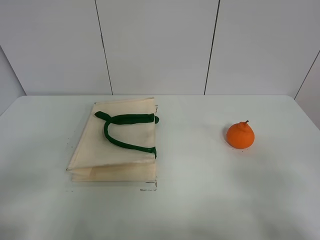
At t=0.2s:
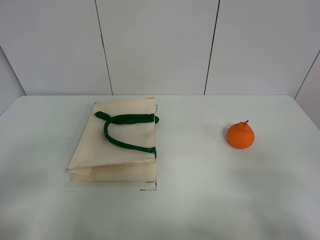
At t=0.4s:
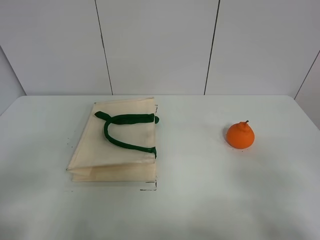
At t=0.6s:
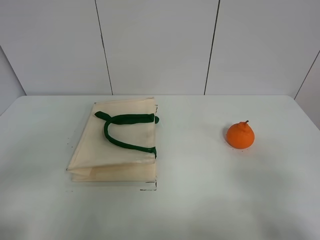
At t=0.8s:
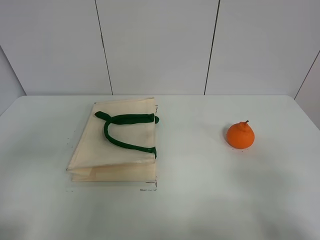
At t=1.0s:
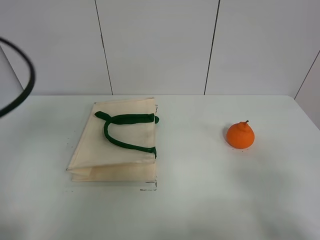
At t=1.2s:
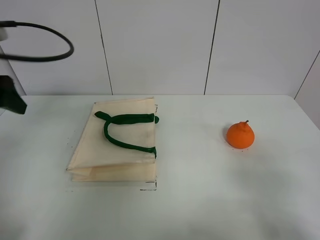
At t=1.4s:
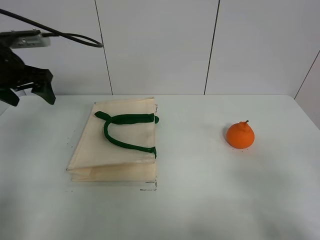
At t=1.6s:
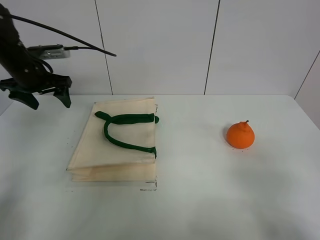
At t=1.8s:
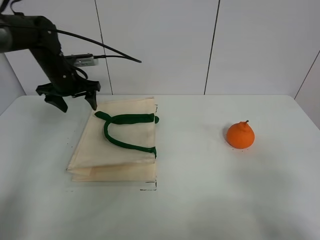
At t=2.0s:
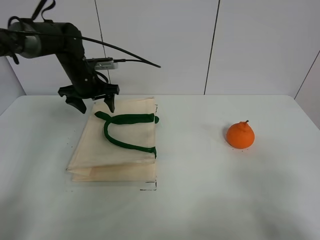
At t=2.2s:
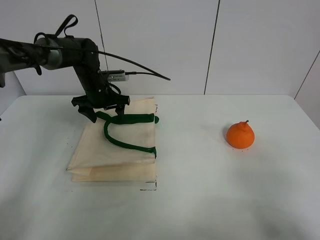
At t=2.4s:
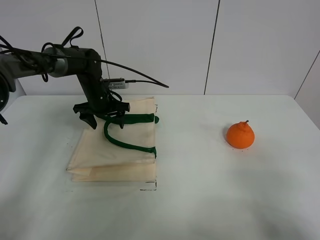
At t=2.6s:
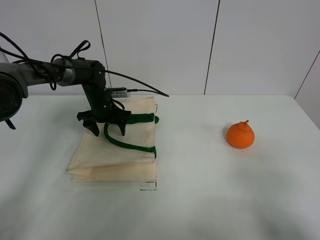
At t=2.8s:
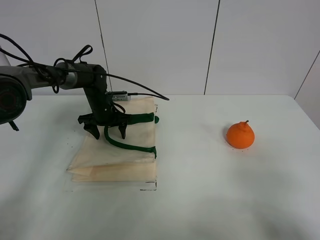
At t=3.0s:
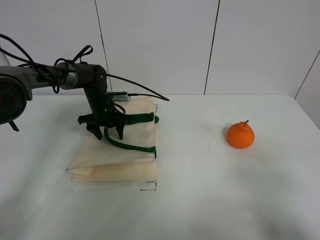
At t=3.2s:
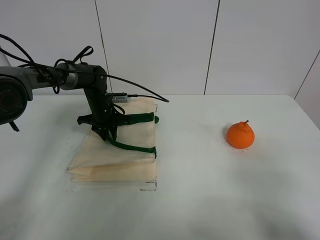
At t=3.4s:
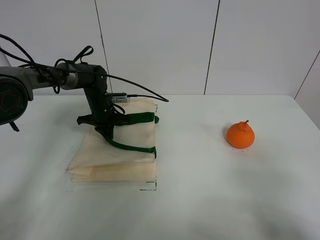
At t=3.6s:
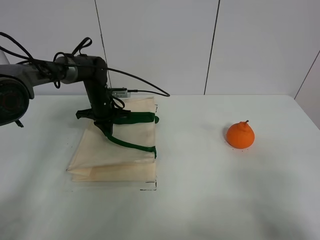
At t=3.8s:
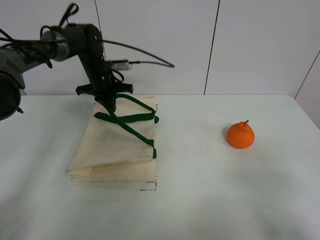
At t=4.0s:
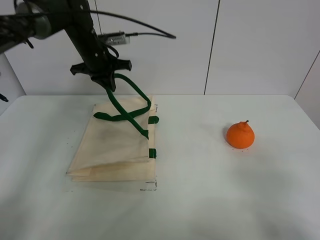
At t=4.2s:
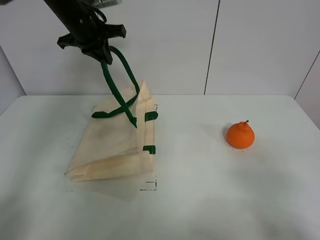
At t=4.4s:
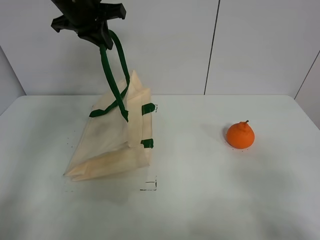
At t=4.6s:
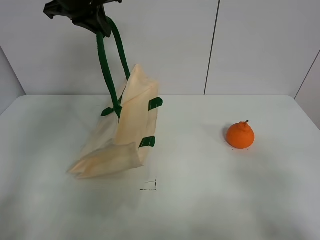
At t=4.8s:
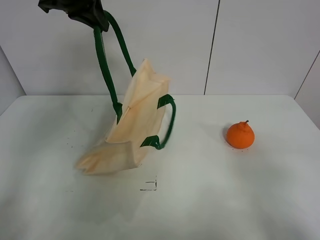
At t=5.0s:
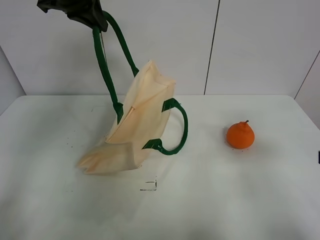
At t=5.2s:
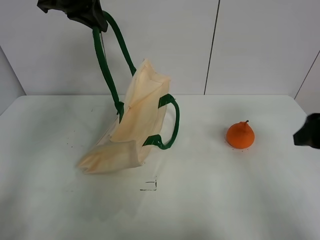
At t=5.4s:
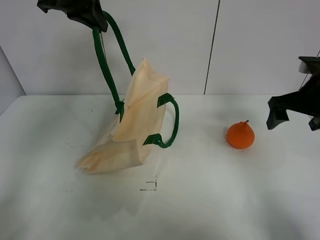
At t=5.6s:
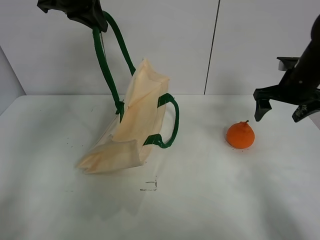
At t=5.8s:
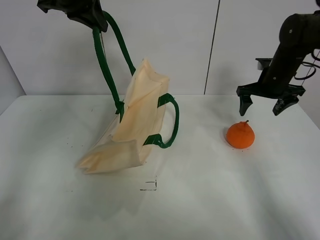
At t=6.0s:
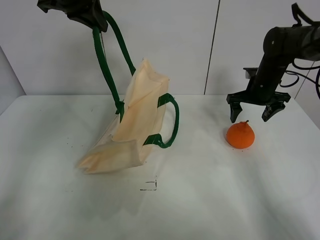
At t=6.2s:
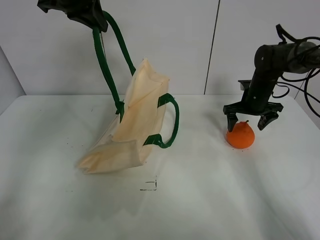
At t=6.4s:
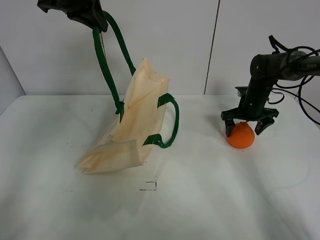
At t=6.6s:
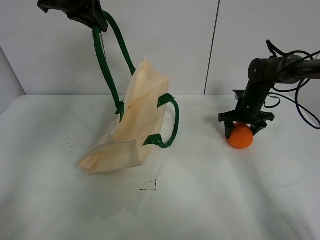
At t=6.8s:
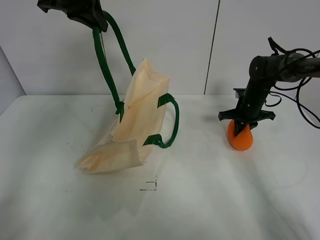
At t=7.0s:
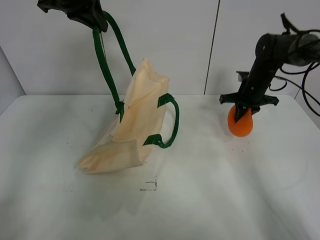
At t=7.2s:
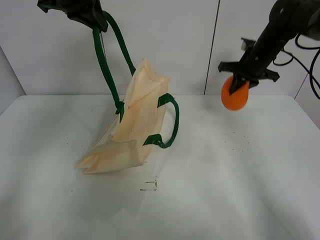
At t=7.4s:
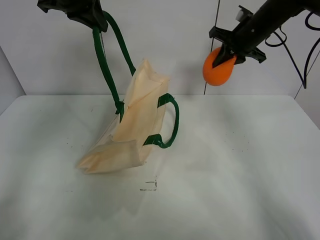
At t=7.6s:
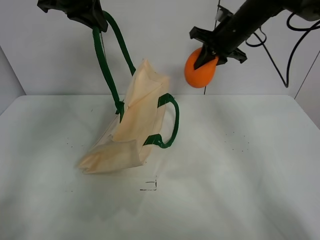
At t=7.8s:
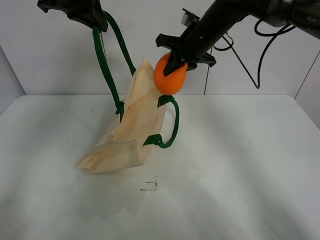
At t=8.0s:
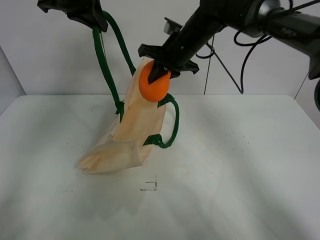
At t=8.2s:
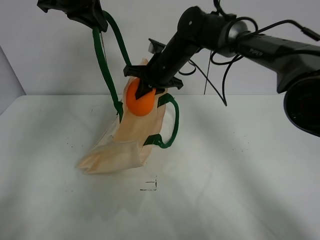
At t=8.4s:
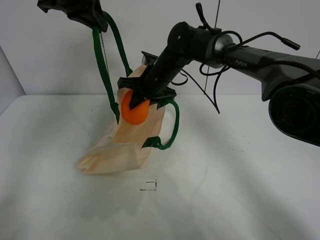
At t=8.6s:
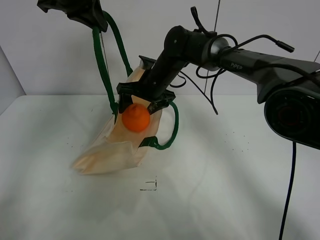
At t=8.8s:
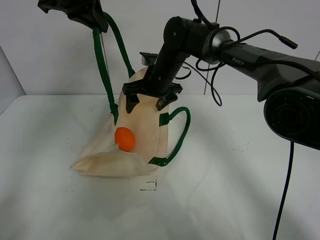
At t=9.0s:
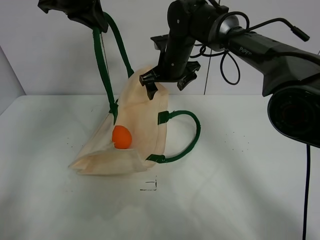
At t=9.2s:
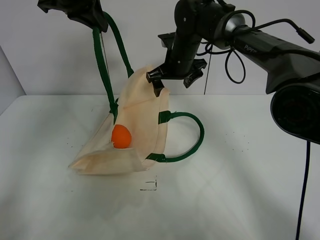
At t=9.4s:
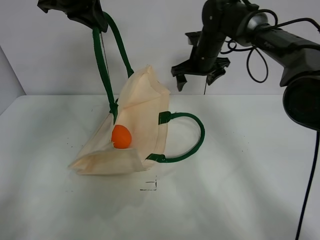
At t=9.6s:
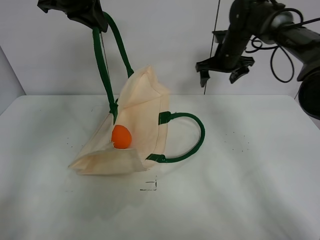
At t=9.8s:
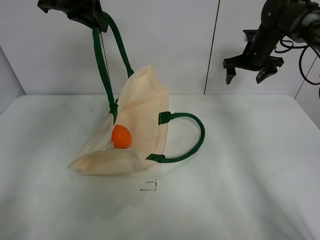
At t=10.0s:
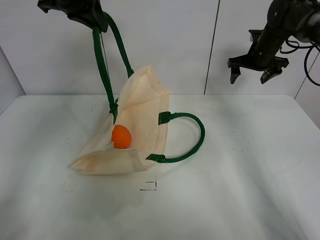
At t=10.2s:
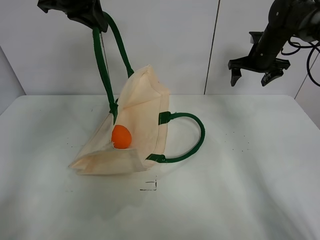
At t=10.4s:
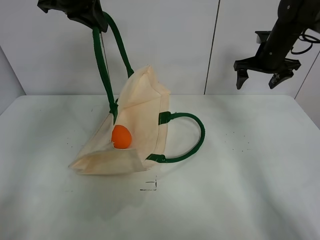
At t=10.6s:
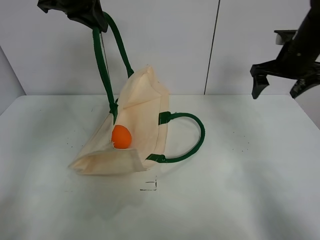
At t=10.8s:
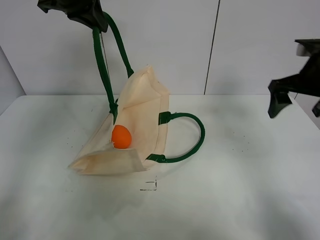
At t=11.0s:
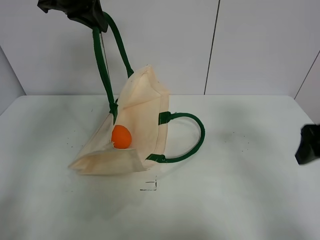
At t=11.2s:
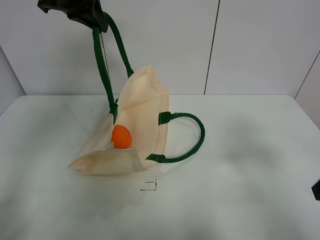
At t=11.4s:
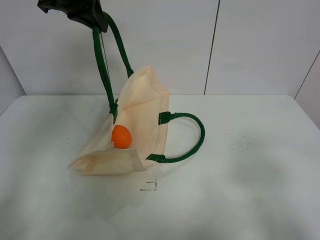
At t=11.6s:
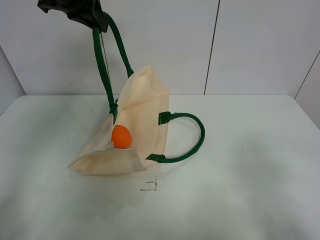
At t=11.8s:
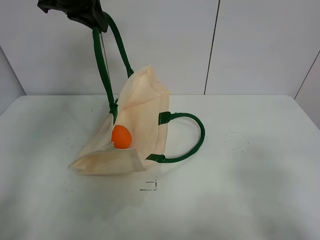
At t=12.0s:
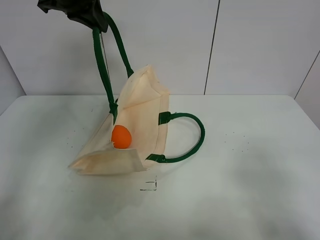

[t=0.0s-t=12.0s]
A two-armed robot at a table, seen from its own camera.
Task of the whole recording: open the white linen bag and put the orange in the bag.
Step, t=0.0s to t=4.4s: Lift the handbag with left gripper.
Step, t=4.6s to t=6.6s: Grasp the orange with right gripper.
Step, t=6.8s to t=9.0s: Place the orange in the handbag with right gripper.
t=0.0s to t=1.6s: The left gripper shifts some 40 cm forward.
t=1.6s to t=3.0s: The left gripper is displaced downward, to the right and forward by roughly 20 cm.
t=3.0s to t=4.4s: The left gripper heads upward, covering approximately 30 cm, and closes up.
t=4.4s to t=6.0s: The right gripper moves forward, approximately 40 cm.
t=6.0s to t=7.6s: The right gripper shifts approximately 15 cm upward and to the left, and closes.
t=7.6s to t=9.0s: The right gripper is displaced to the left and downward by approximately 15 cm, and opens its fingers.
t=9.0s to t=10.4s: The right gripper is displaced to the right by about 25 cm.
t=10.4s to t=12.0s: The right gripper heads backward, covering approximately 50 cm.

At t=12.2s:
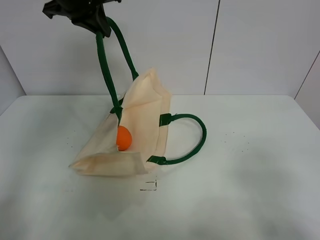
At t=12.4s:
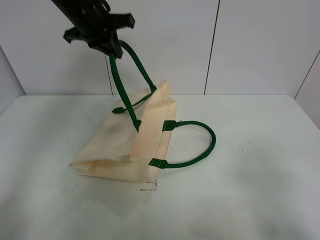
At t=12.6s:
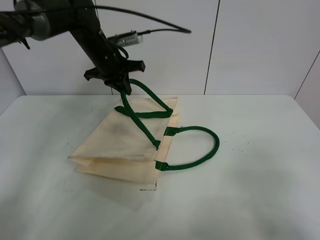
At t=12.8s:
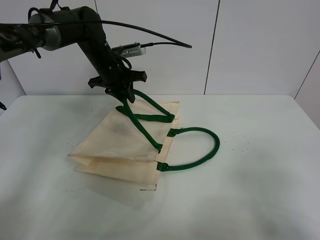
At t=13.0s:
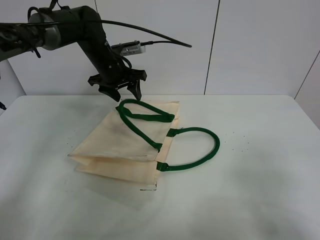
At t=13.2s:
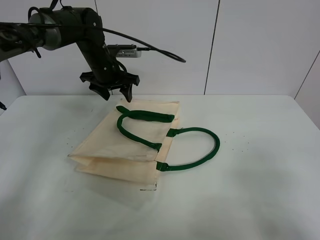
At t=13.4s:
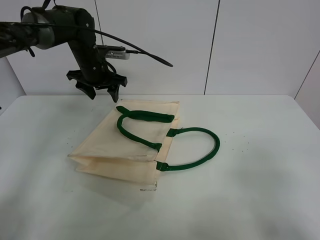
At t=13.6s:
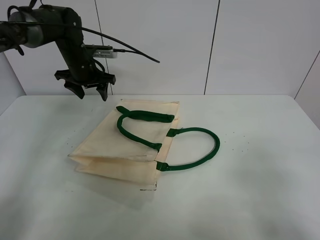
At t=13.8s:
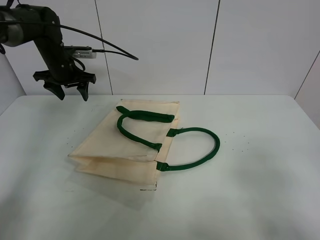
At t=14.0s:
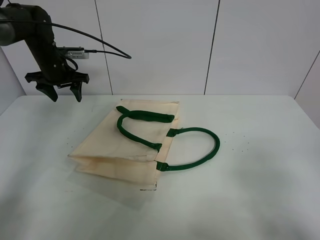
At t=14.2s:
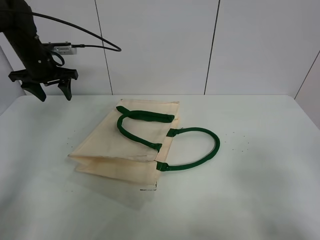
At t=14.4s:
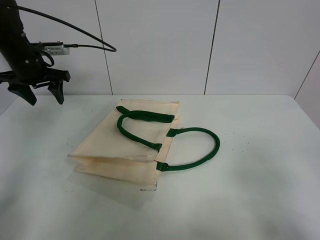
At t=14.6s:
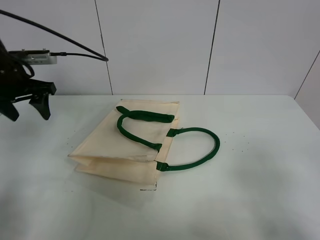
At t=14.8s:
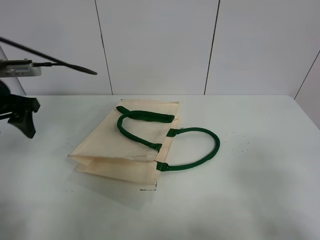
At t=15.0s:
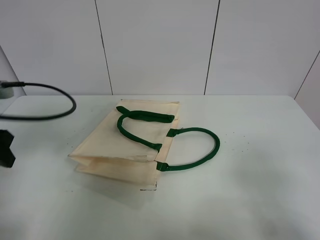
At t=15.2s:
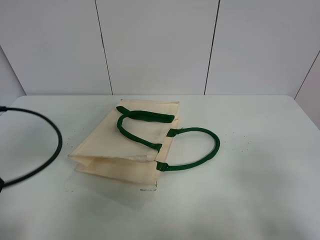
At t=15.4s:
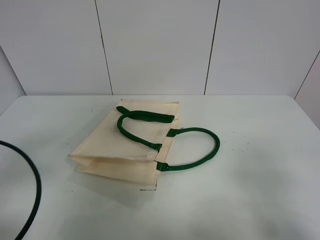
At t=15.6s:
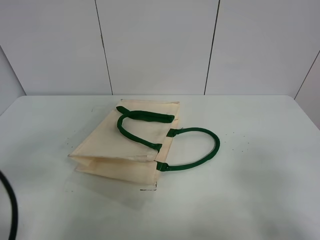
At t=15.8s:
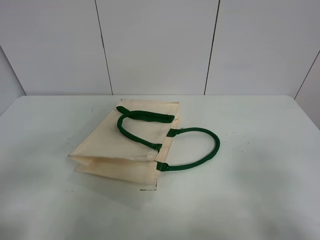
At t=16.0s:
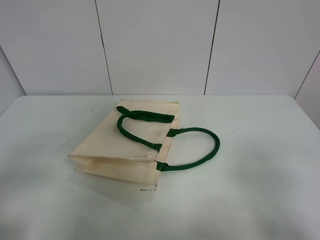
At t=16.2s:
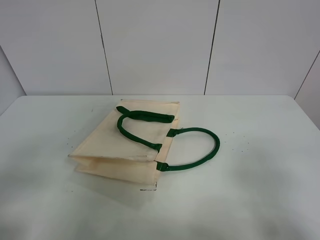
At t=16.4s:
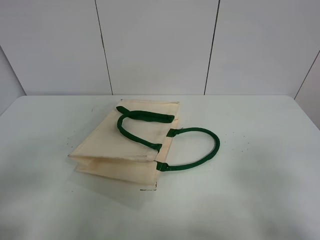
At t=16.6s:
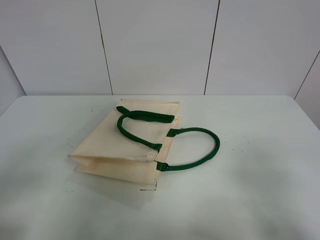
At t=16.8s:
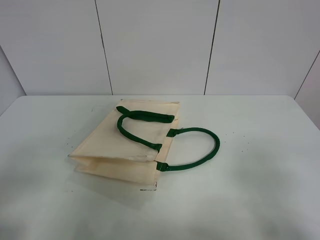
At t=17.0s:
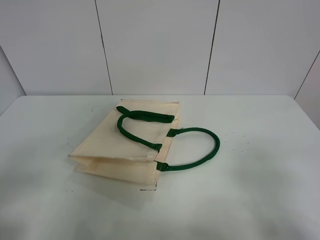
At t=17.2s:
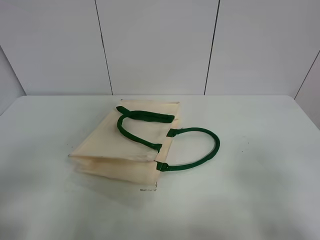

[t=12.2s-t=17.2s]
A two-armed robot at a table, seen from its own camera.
Task of the whole recording: open the white linen bag and put the orange in the bag.
t=12.2s to t=13.8s: The left gripper travels downward, to the left and forward by some 20 cm, and opens.
t=13.8s to t=15.6s: The left gripper goes about 40 cm backward.
t=15.6s to t=17.2s: The left gripper is displaced backward by about 5 cm.
